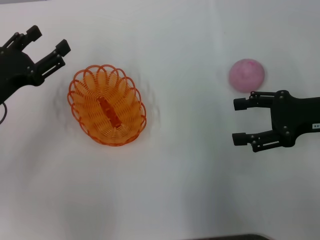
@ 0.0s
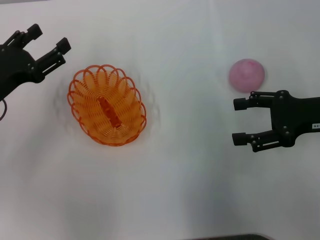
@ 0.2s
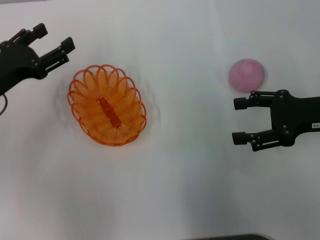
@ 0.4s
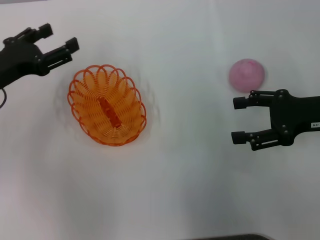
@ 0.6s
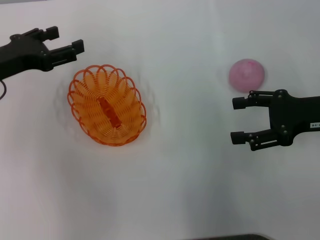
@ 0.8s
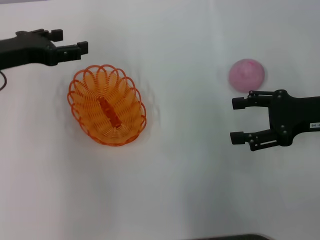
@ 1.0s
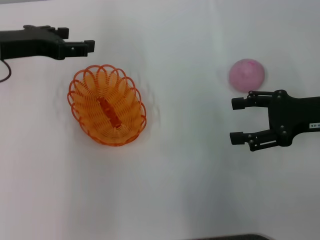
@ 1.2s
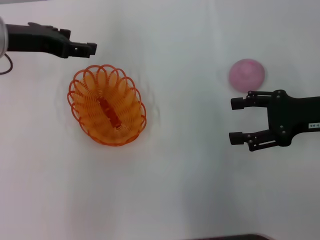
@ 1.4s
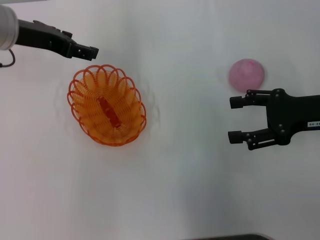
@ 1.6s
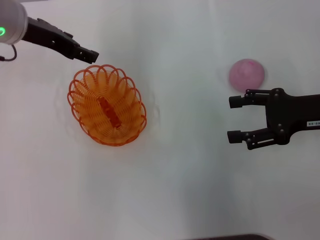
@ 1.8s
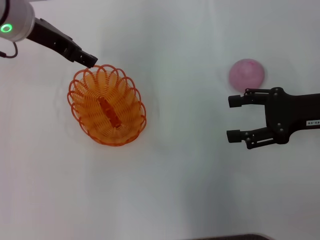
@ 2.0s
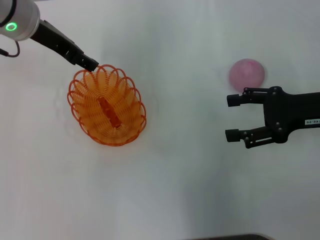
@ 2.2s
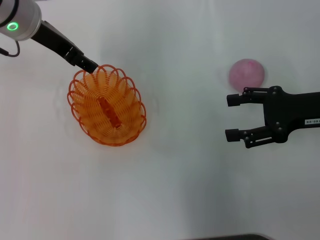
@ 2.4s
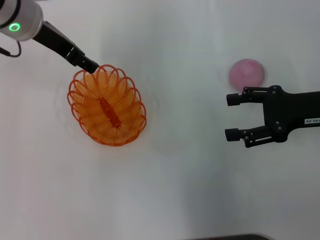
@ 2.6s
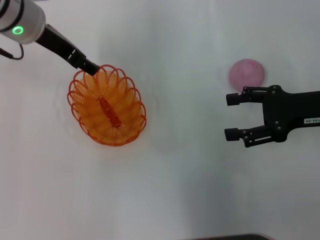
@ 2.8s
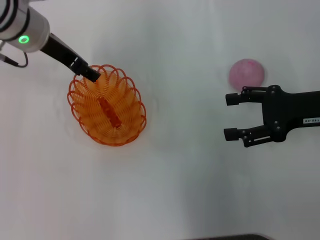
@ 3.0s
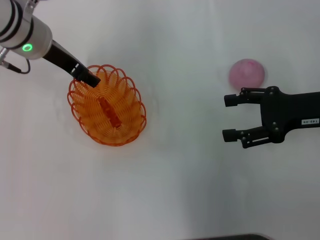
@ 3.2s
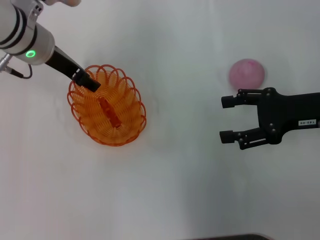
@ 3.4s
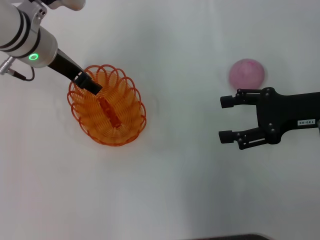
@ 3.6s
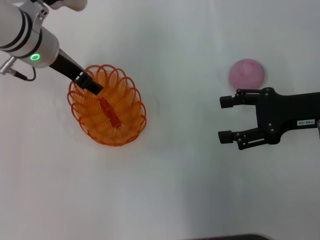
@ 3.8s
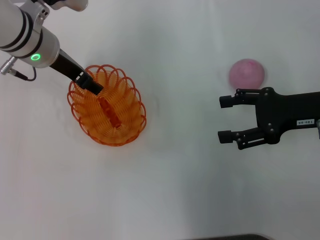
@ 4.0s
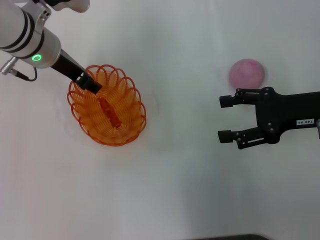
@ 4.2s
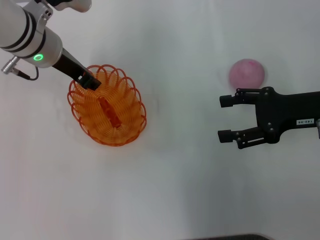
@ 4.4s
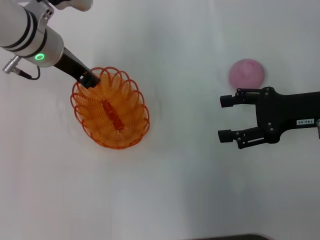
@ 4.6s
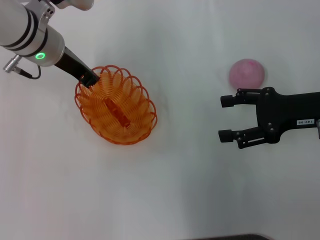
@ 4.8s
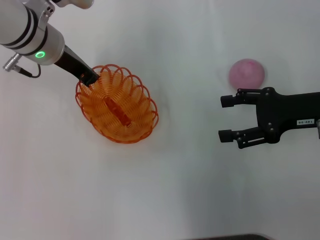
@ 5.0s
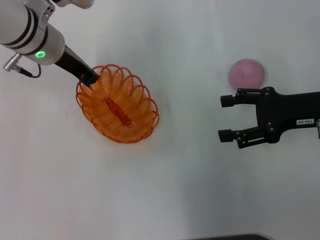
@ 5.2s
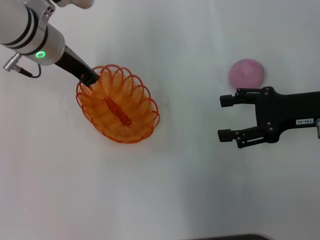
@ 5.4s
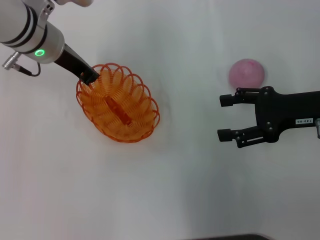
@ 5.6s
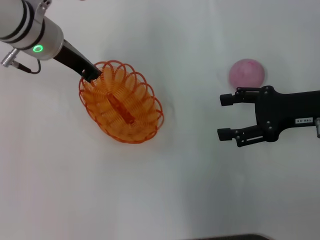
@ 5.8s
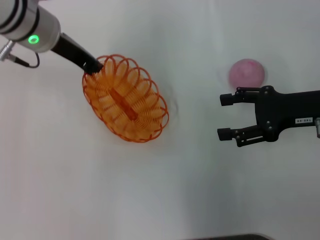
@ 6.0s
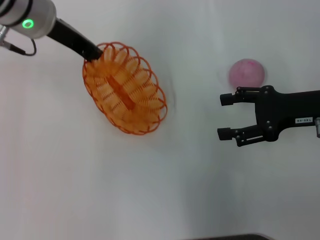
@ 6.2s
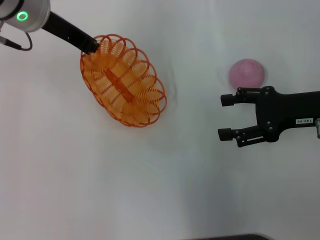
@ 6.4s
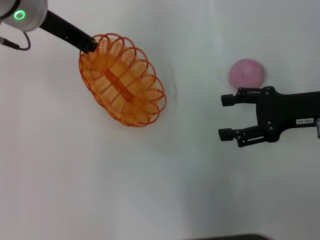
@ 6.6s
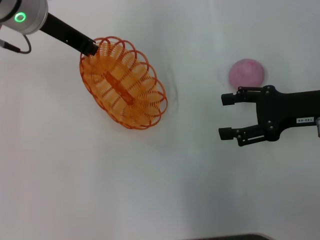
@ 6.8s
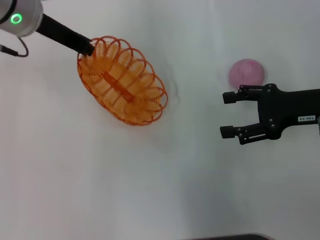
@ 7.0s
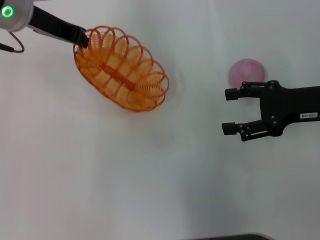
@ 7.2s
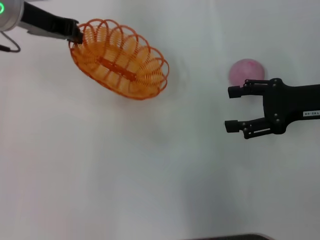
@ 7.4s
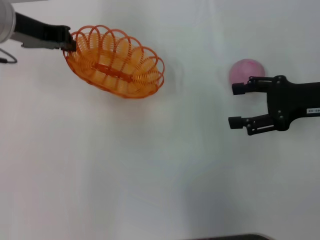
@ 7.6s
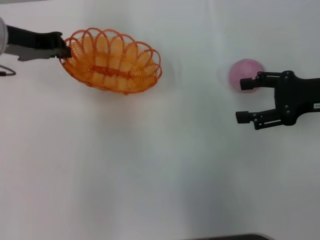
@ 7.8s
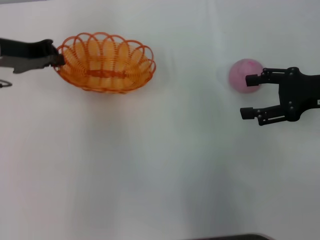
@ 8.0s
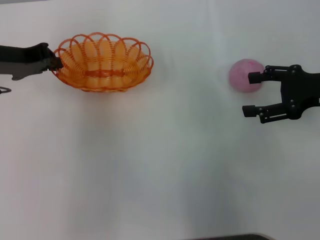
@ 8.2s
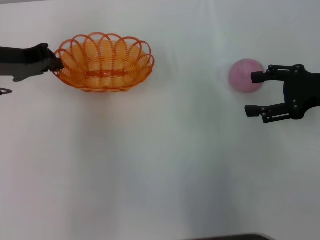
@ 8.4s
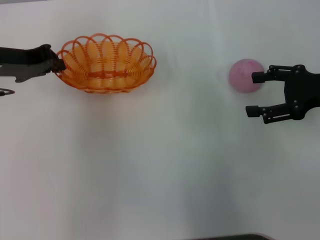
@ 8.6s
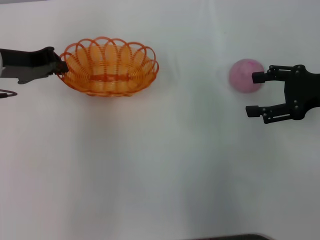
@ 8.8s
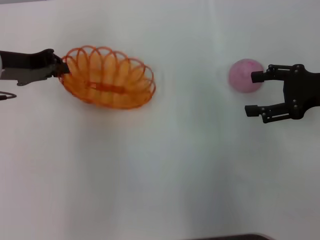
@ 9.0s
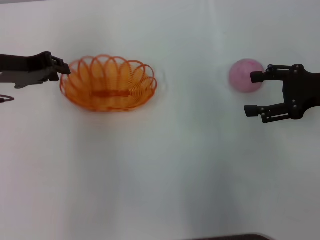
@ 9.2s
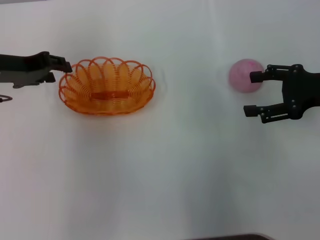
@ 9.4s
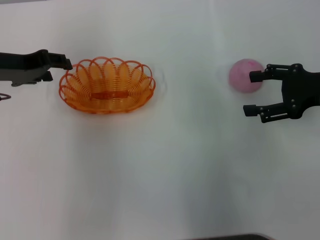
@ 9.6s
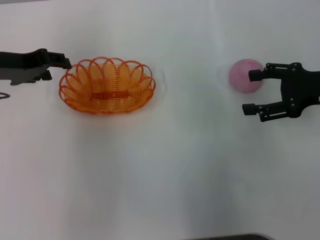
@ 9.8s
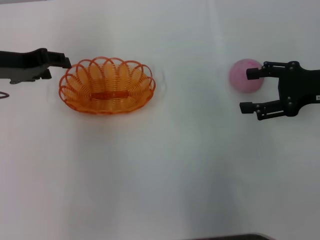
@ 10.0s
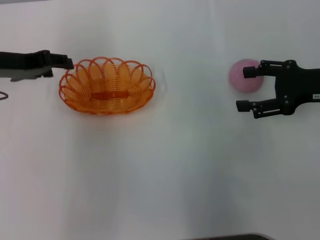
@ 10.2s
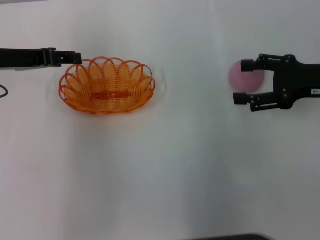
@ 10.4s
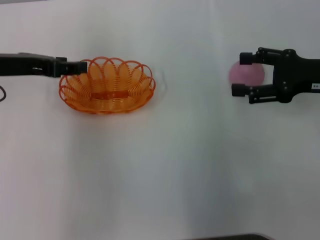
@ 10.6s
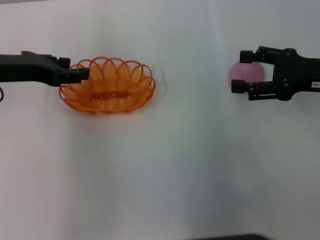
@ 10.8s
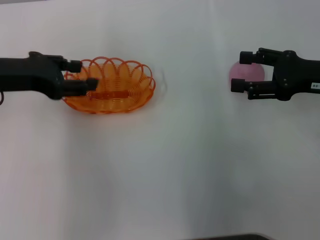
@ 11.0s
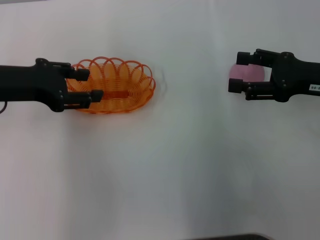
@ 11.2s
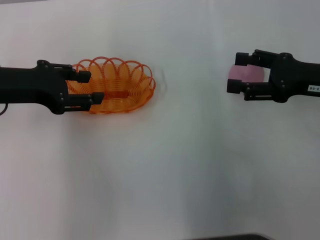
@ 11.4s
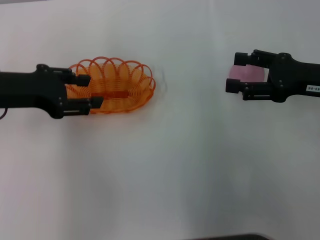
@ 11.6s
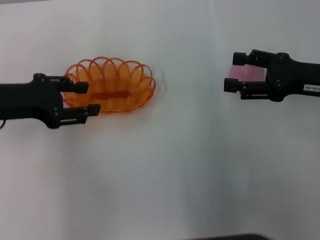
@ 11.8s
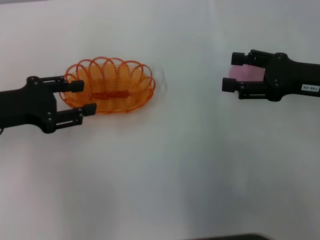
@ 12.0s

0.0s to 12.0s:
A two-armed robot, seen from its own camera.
Step, 0.0s to 6.4s: Pick up the basket with the left gripper.
0.0s to 1.6s: The left gripper moves upward, forward and to the right, approximately 15 cm.
1.6s to 3.0s: There are only small adjustments of the grippers.
3.0s to 4.4s: The grippers make only small movements.
4.4s to 6.0s: The left gripper closes its fingers.
6.0s to 7.6s: The left gripper shifts roughly 5 cm to the left.
7.6s to 9.0s: The left gripper ends up some 5 cm from where it was.
9.0s to 10.4s: The left gripper opens.
10.4s to 12.0s: The left gripper travels backward by approximately 5 cm.

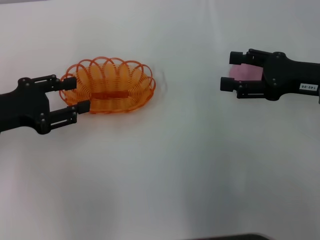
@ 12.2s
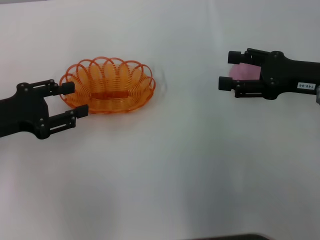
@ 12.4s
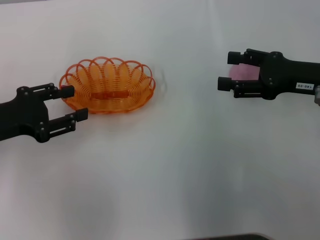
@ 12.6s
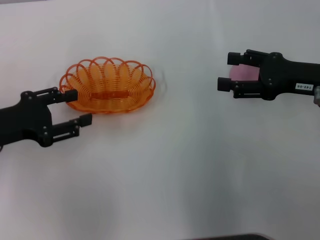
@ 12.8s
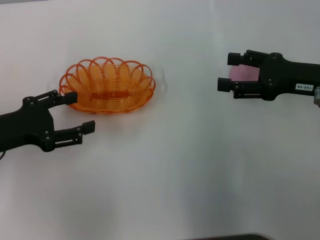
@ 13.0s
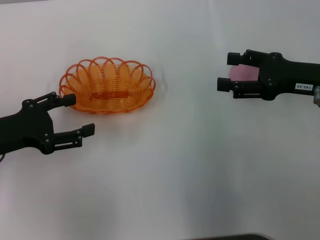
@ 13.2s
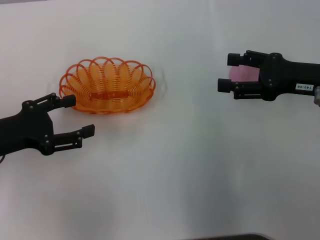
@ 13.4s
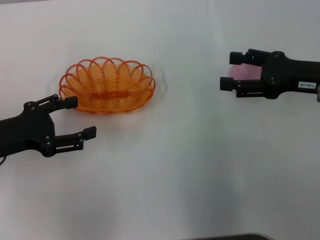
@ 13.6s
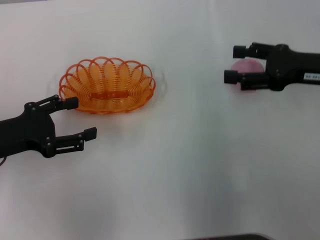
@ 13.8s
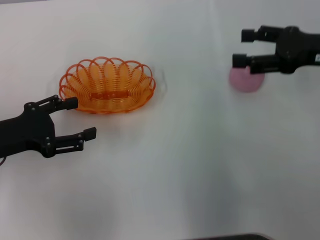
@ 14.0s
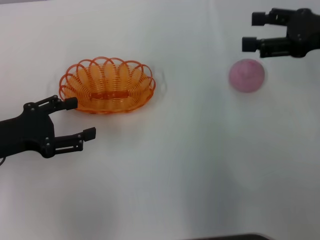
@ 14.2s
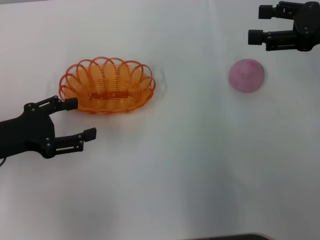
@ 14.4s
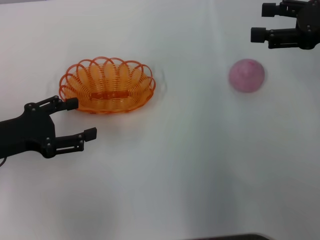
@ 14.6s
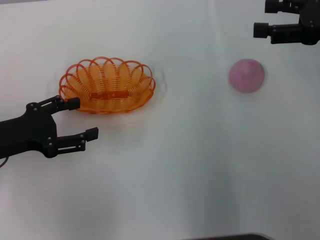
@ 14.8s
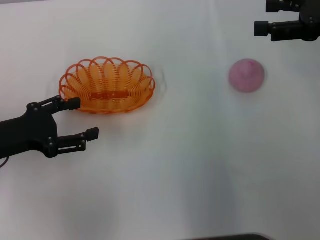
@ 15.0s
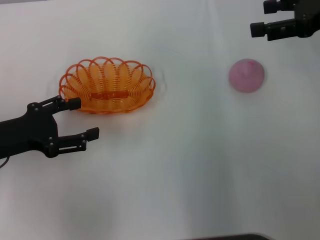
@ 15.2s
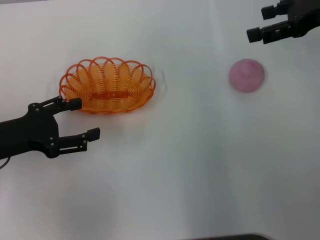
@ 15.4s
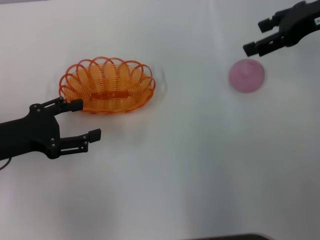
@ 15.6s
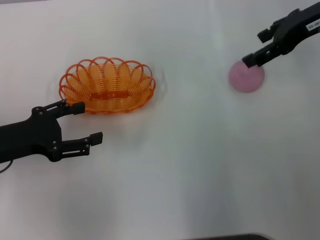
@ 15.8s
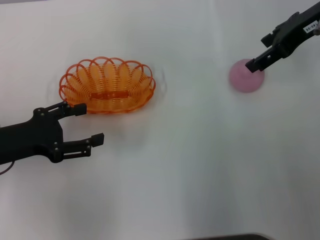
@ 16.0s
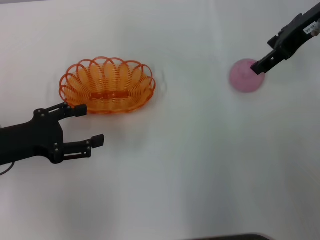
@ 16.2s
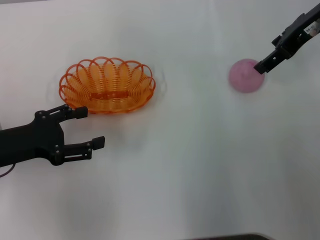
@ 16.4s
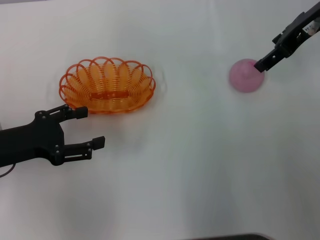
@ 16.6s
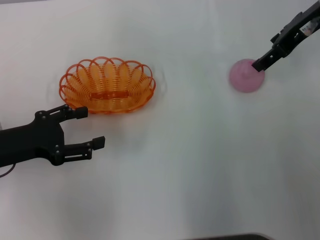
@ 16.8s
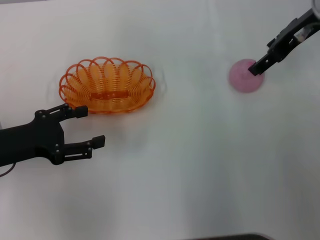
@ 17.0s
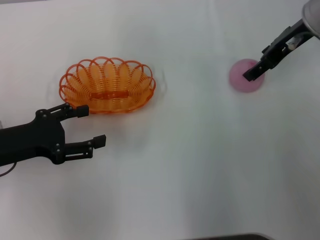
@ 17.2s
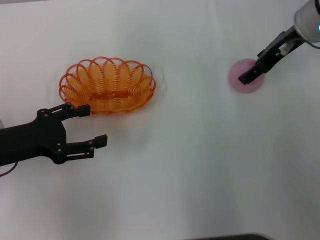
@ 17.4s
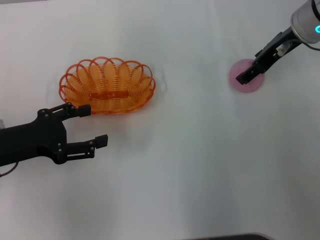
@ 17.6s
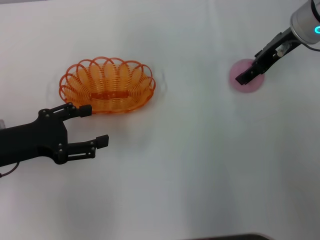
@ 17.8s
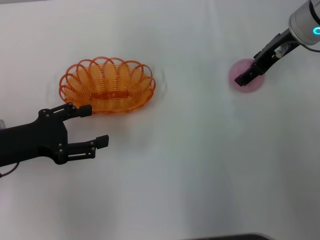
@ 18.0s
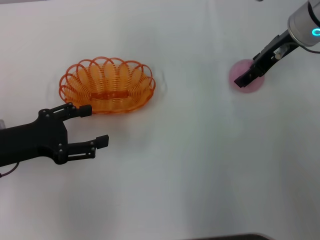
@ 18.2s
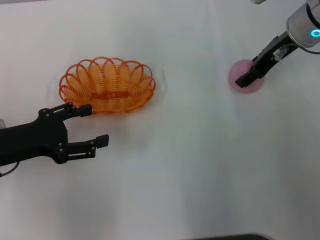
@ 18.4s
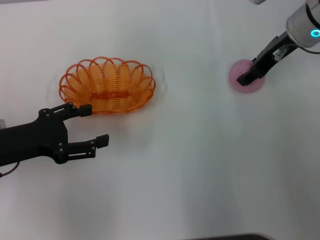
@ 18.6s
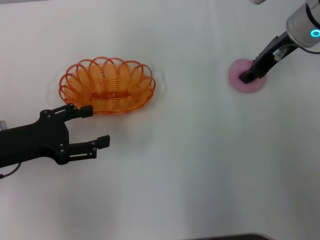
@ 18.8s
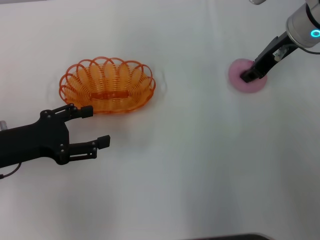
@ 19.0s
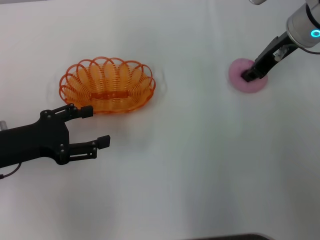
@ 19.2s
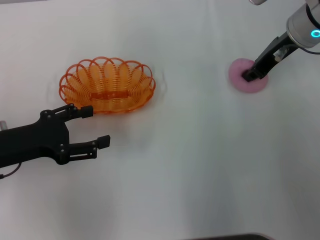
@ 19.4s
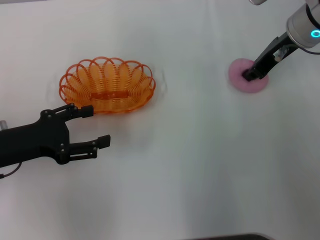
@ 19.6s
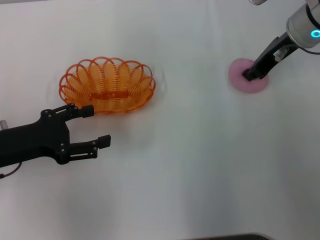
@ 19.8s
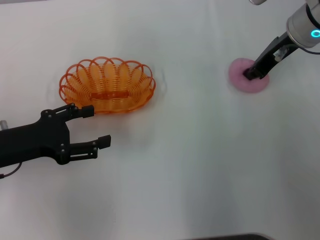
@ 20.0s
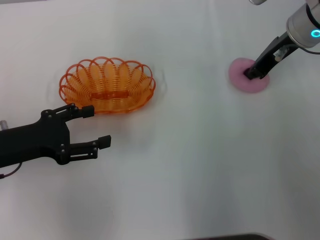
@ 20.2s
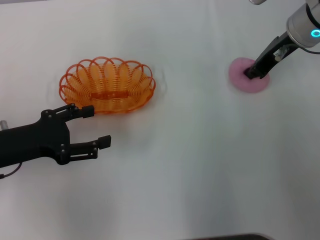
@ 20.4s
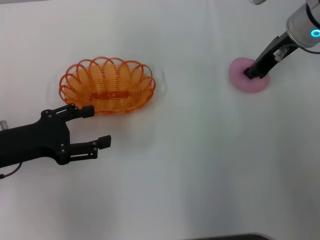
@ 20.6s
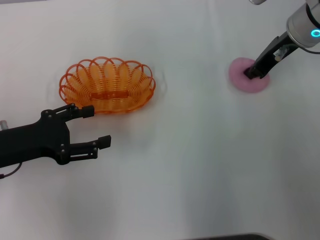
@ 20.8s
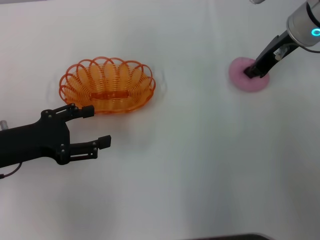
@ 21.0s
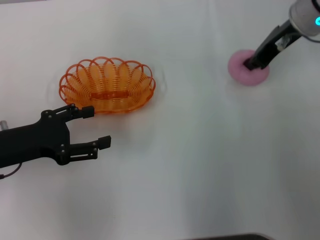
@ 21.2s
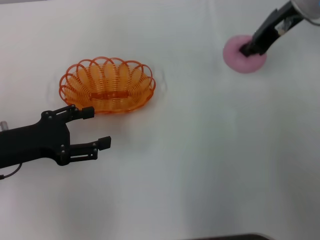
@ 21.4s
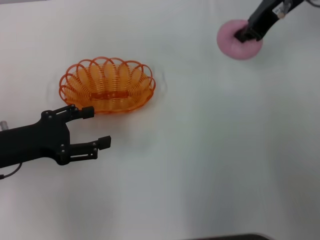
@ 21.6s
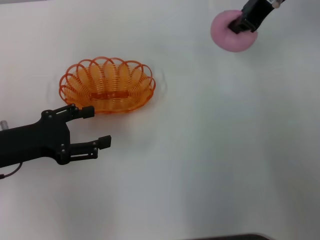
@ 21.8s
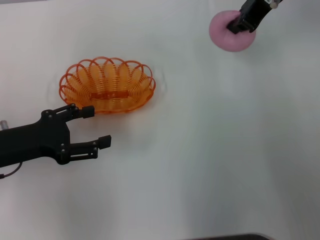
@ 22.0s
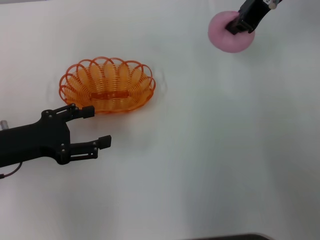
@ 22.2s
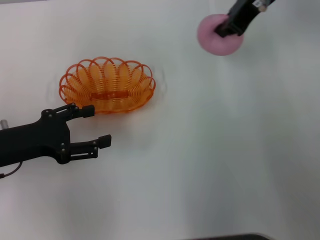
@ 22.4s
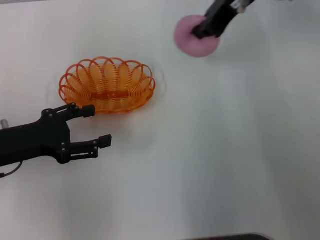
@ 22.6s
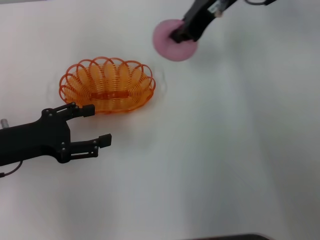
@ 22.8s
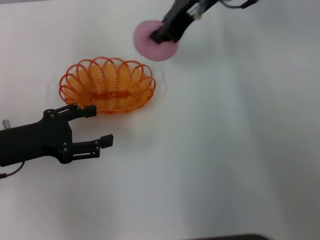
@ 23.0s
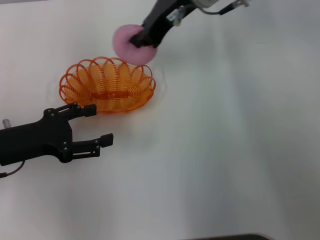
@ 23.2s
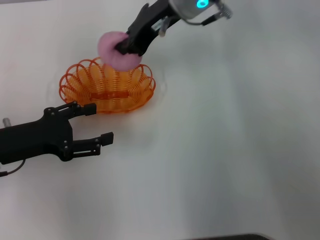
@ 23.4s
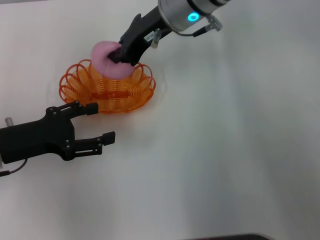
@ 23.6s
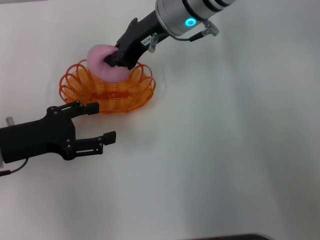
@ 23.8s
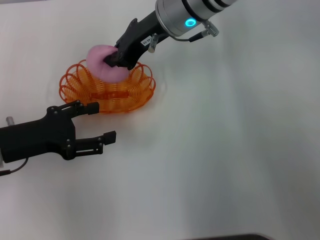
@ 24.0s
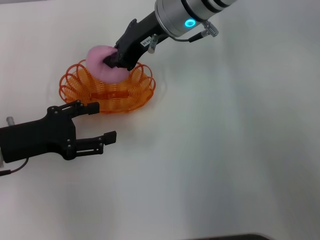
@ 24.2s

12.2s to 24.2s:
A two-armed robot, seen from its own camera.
Step, 13.0s to 21.6s: Pick up the peach with the right gripper.
12.2s to 13.8s: The grippers stay close to where they were, moving slightly.
13.8s to 15.2s: The right gripper travels upward by about 10 cm.
15.2s to 16.6s: The right gripper heads to the left, covering roughly 5 cm.
16.6s to 18.2s: The right gripper moves downward, roughly 5 cm.
18.2s to 19.8s: The right gripper closes up.
19.8s to 21.2s: The grippers make only small movements.
21.2s to 22.6s: The right gripper is displaced to the left and upward by about 10 cm.
22.6s to 24.2s: The right gripper is displaced to the left and downward by approximately 10 cm.
